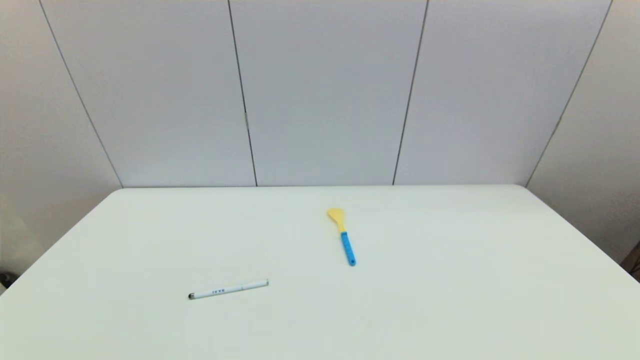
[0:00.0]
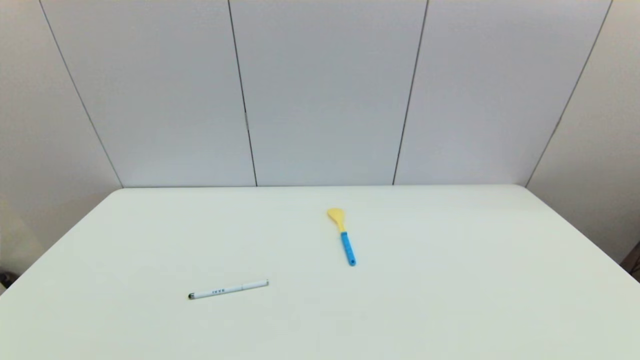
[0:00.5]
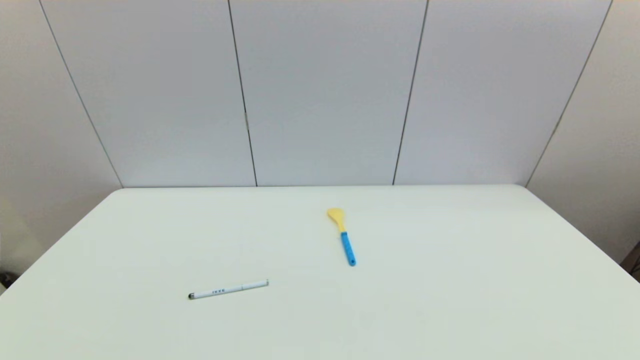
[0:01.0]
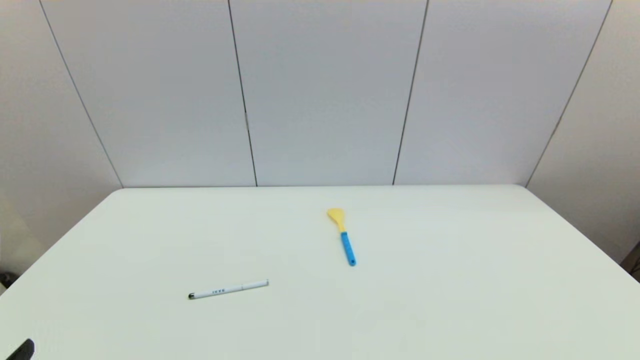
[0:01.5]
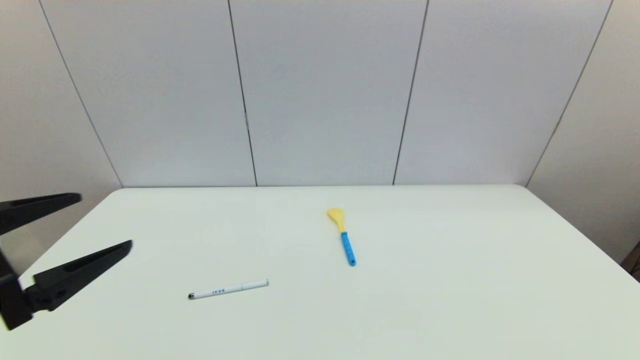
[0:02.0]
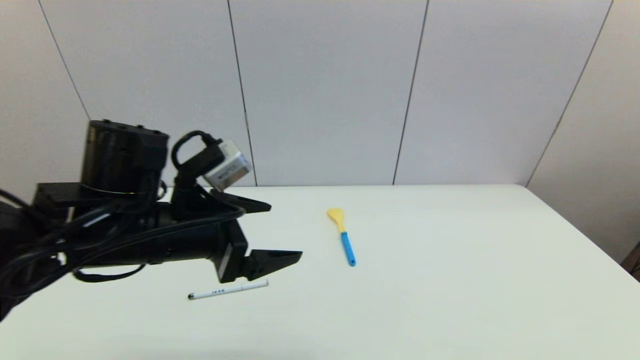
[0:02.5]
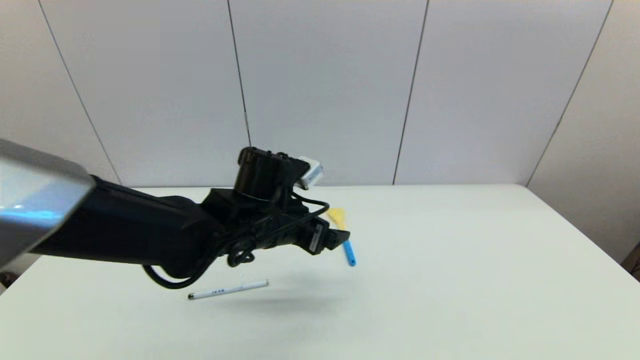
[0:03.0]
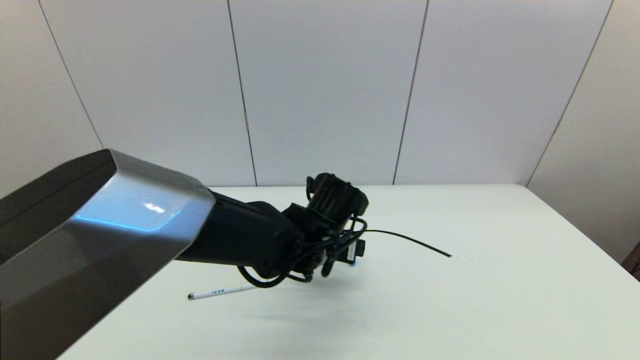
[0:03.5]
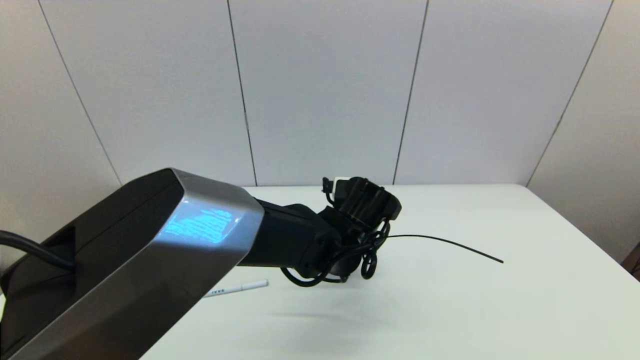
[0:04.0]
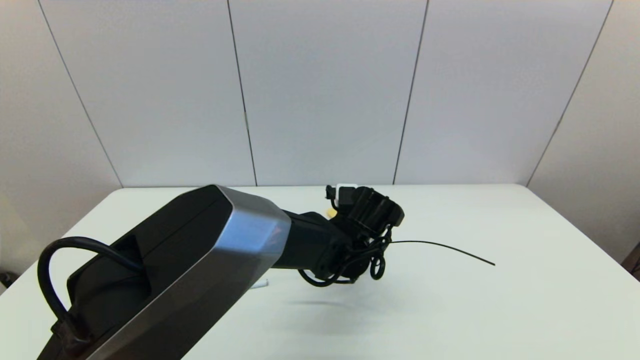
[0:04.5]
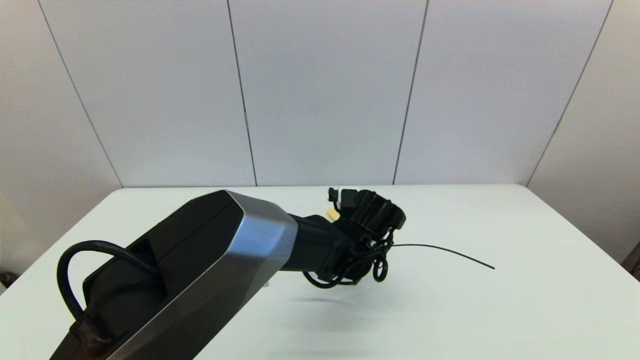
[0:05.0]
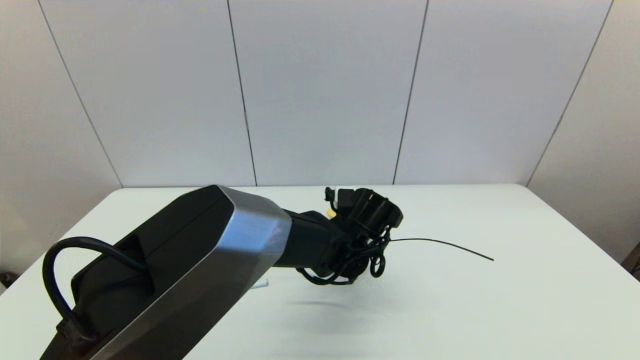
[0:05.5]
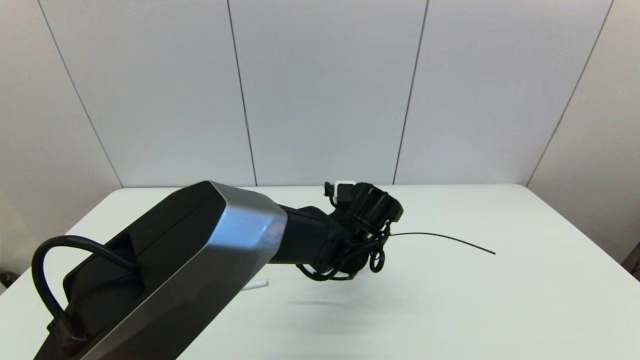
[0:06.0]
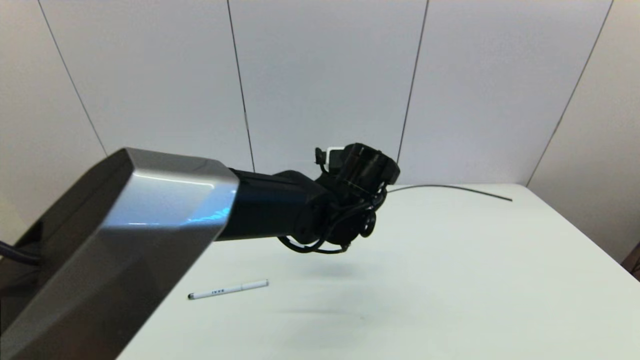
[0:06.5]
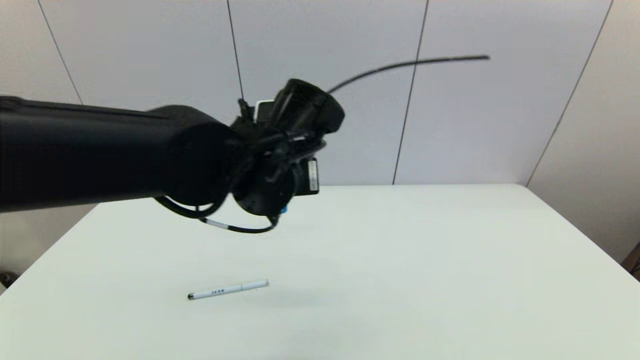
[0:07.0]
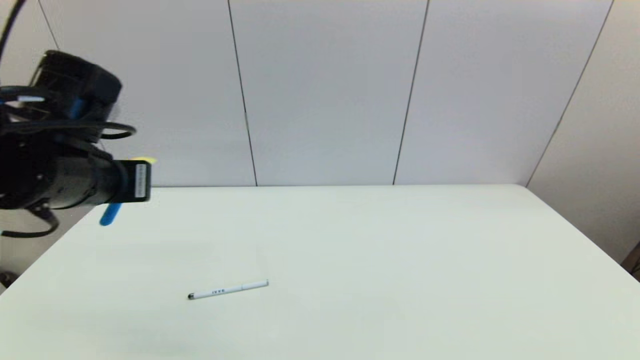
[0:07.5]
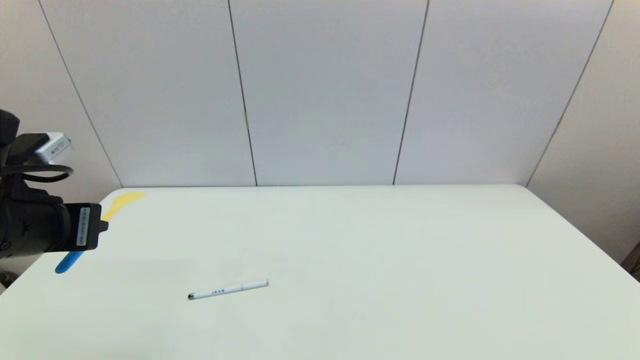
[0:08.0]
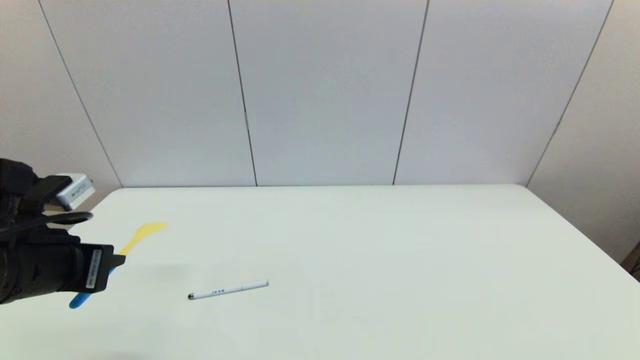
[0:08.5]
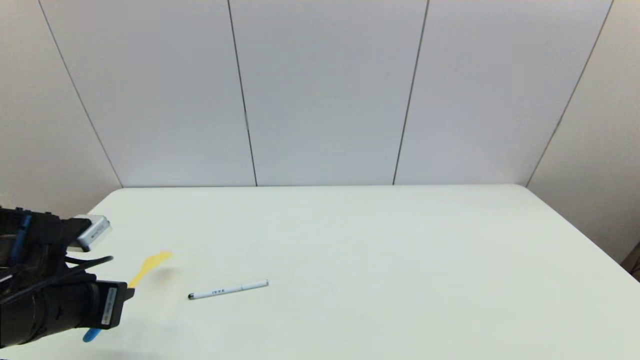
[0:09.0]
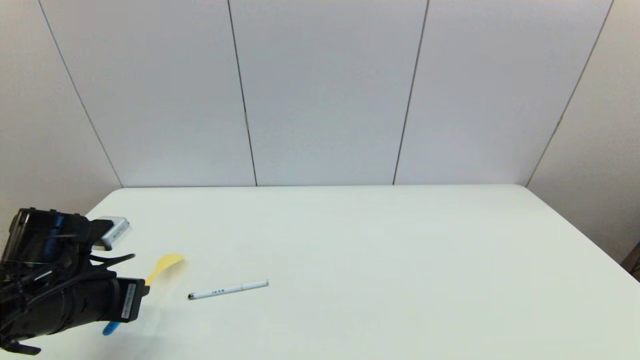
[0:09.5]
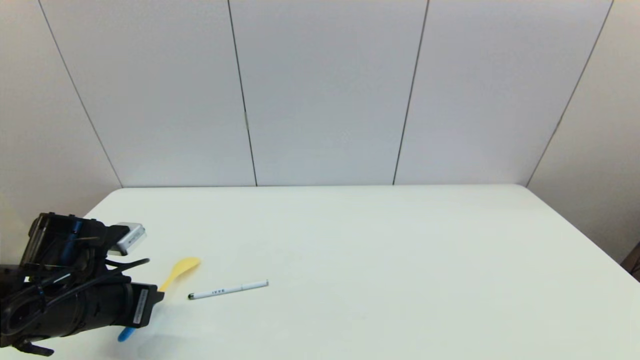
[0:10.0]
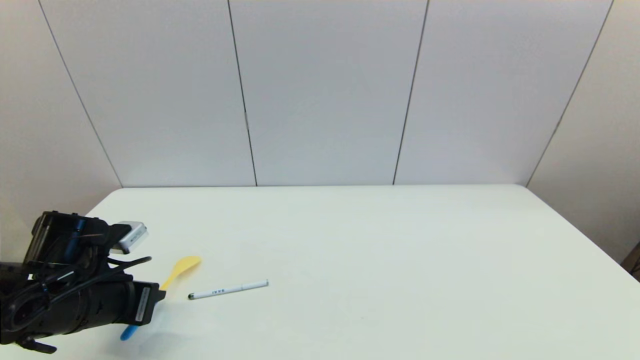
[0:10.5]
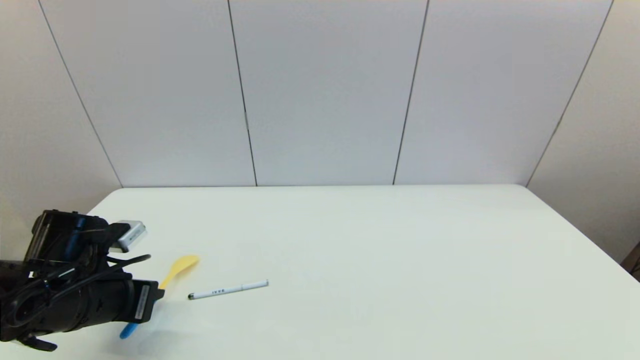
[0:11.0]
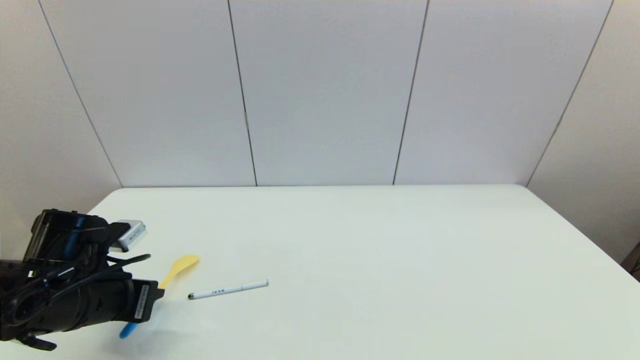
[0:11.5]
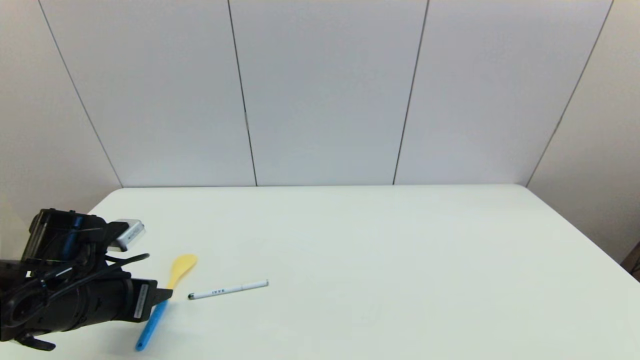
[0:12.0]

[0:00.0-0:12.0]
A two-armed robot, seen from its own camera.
Step, 0:01.5 to 0:05.5: Grasp the spoon with left gripper.
Step, 0:06.5 to 0:11.5: Place the spoon on the table with left gripper.
0:00.0 to 0:02.0: The left gripper is displaced upward and forward by about 20 cm.
0:02.0 to 0:04.0: The left gripper heads to the right and forward, covering about 40 cm.
0:04.0 to 0:06.0: The left gripper closes.
0:06.0 to 0:08.0: The left gripper shifts roughly 35 cm to the left and upward.
0:08.0 to 0:10.0: The left gripper is displaced downward by roughly 15 cm.
0:10.0 to 0:12.0: The left gripper opens its fingers.

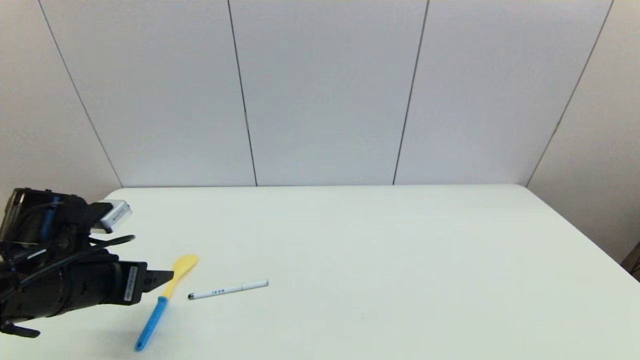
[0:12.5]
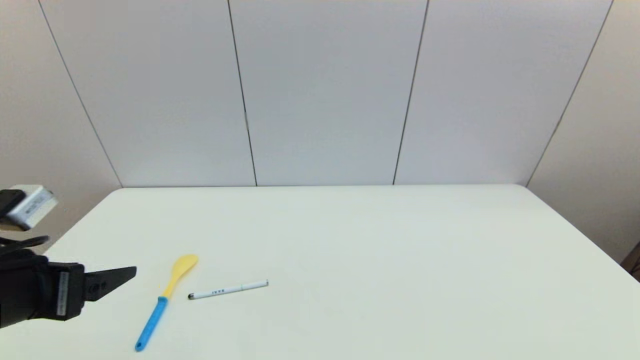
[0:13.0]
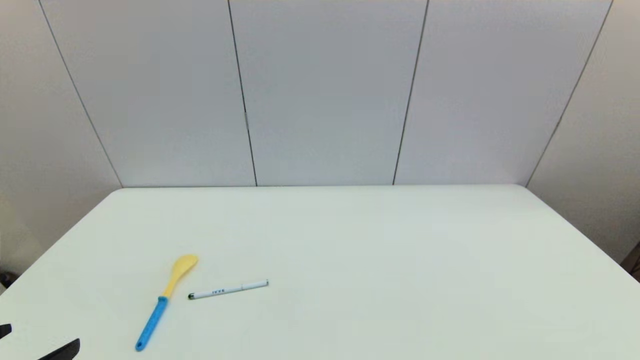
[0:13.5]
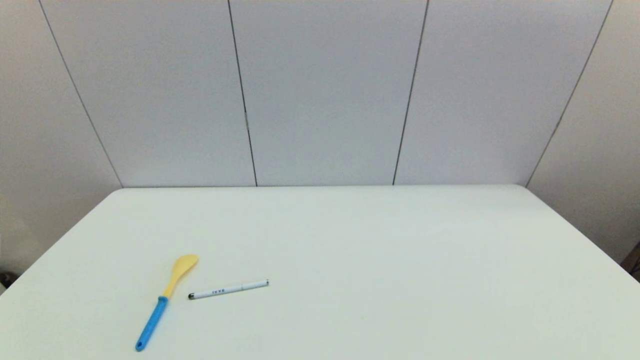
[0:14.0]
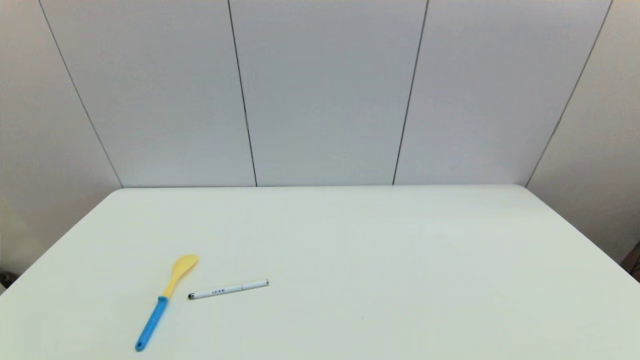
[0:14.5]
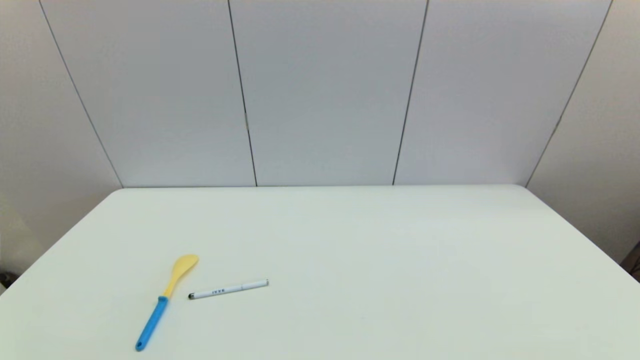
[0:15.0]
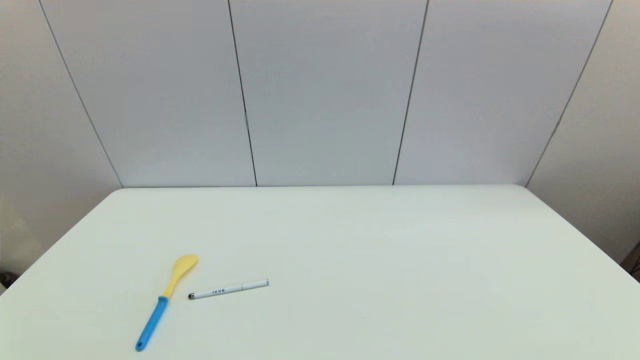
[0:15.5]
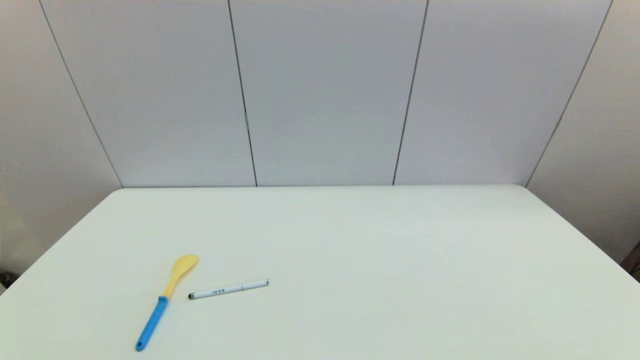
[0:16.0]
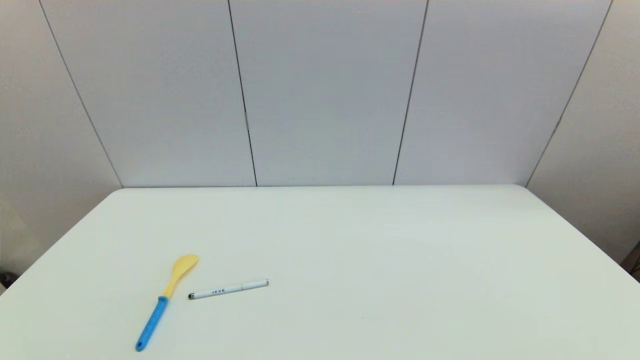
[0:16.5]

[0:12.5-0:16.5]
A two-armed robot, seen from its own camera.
0:12.5 to 0:14.5: The left gripper goes roughly 20 cm backward.
